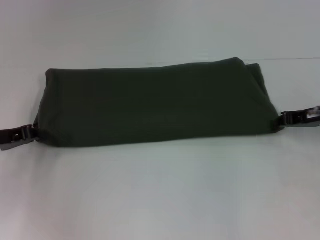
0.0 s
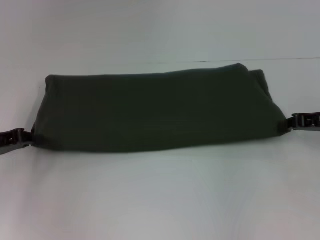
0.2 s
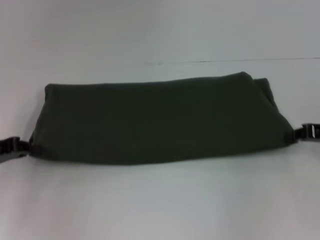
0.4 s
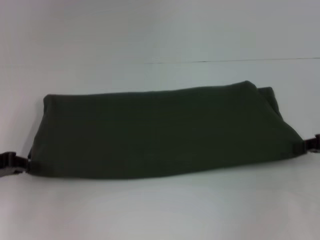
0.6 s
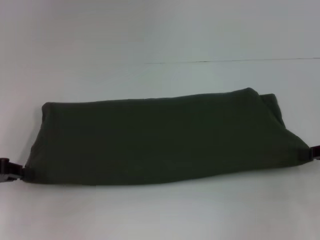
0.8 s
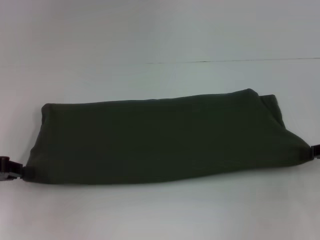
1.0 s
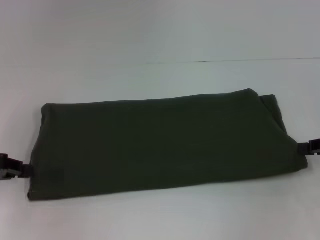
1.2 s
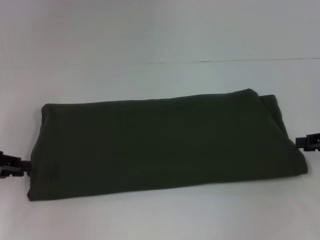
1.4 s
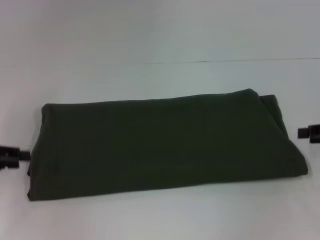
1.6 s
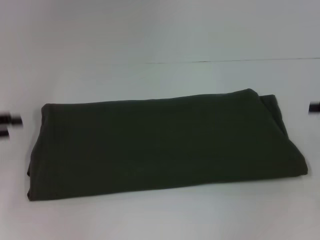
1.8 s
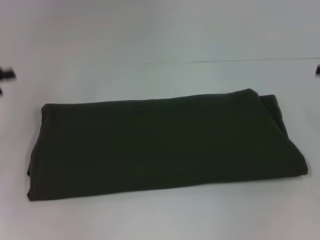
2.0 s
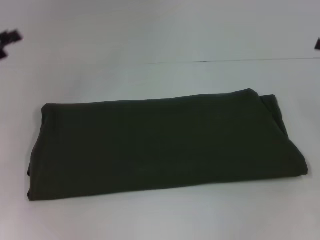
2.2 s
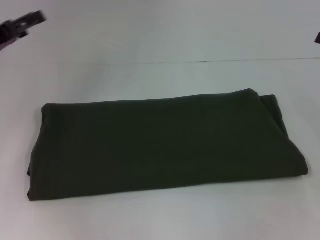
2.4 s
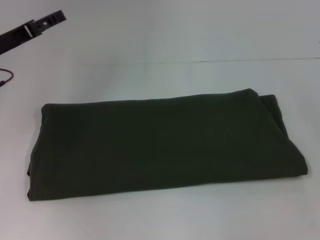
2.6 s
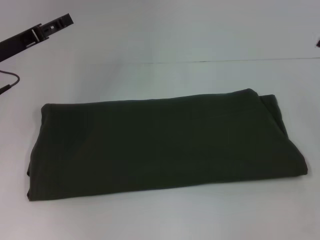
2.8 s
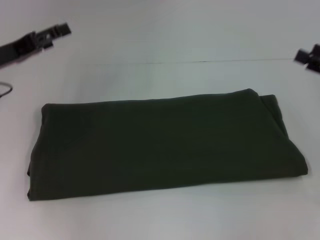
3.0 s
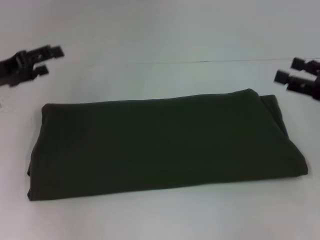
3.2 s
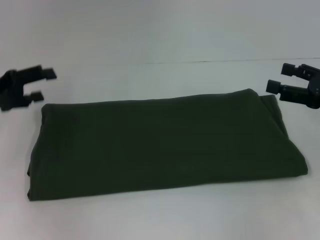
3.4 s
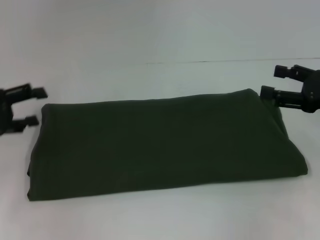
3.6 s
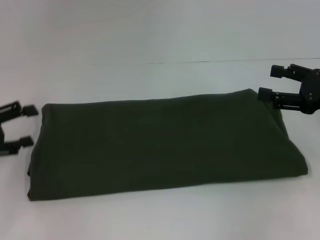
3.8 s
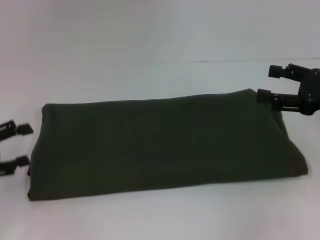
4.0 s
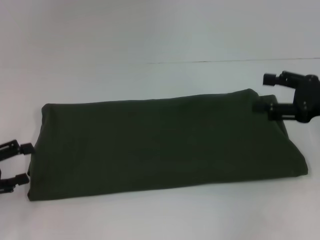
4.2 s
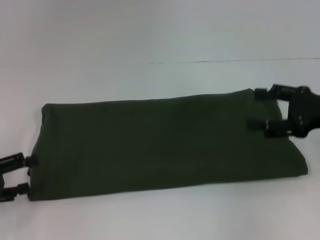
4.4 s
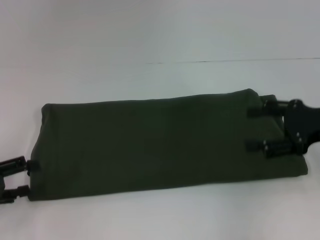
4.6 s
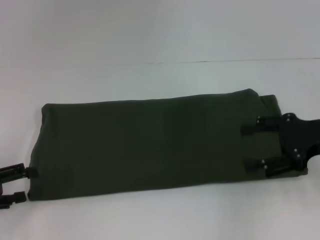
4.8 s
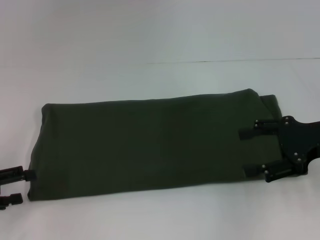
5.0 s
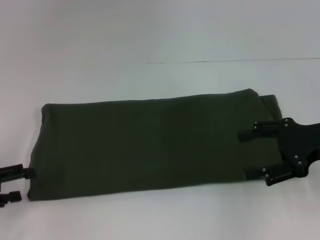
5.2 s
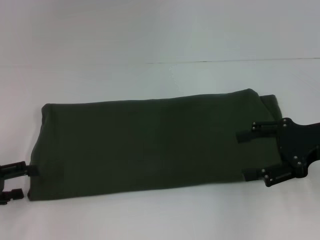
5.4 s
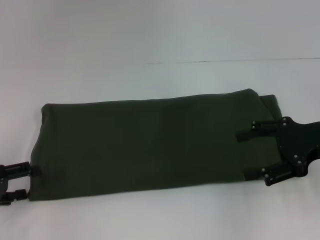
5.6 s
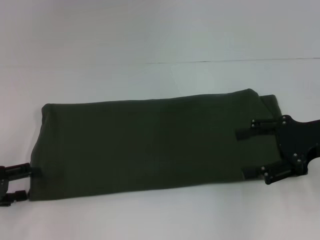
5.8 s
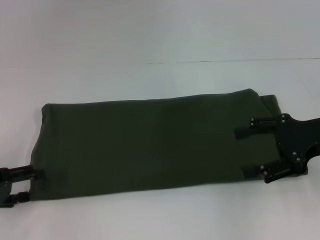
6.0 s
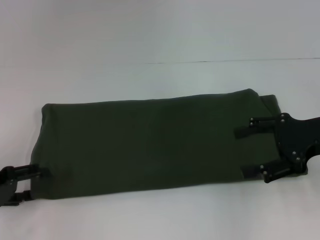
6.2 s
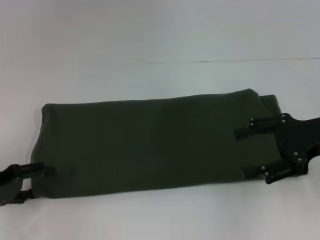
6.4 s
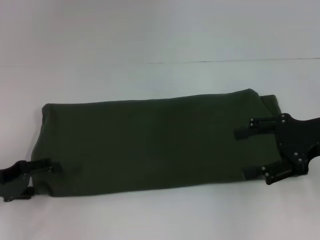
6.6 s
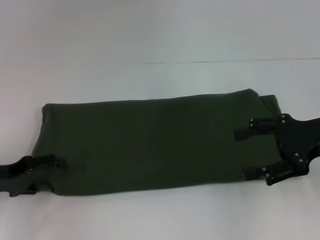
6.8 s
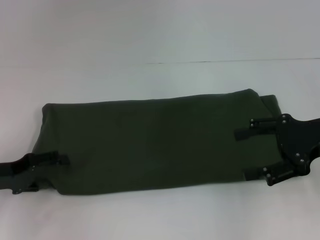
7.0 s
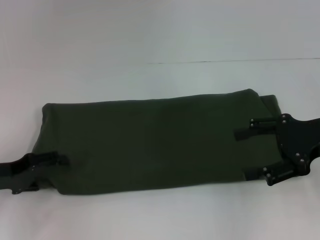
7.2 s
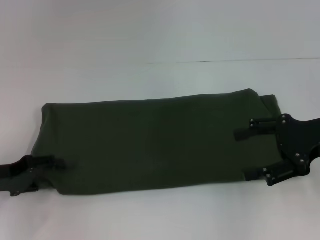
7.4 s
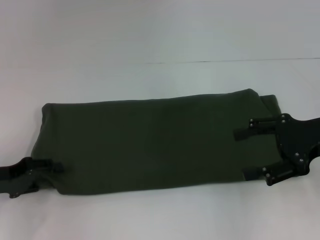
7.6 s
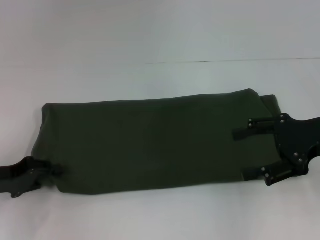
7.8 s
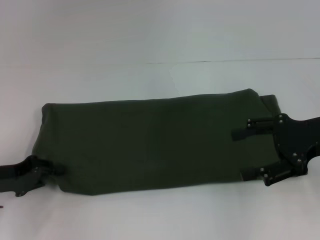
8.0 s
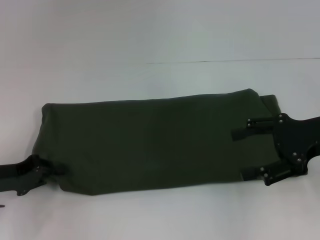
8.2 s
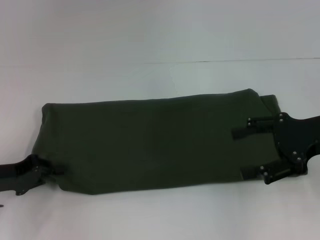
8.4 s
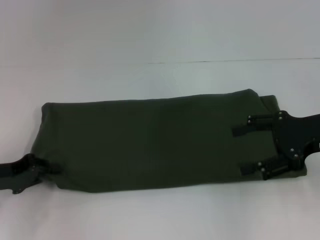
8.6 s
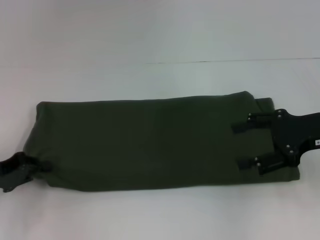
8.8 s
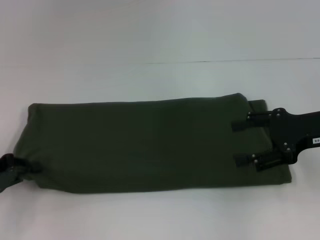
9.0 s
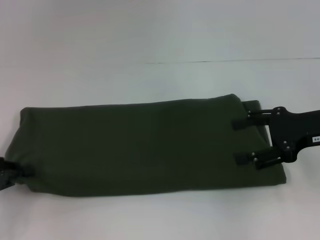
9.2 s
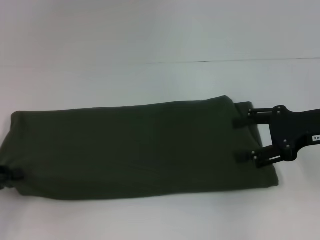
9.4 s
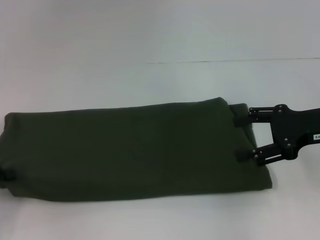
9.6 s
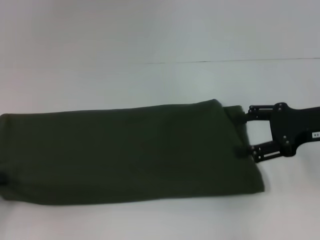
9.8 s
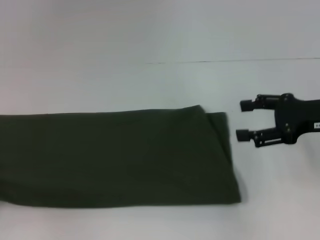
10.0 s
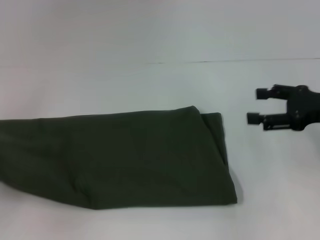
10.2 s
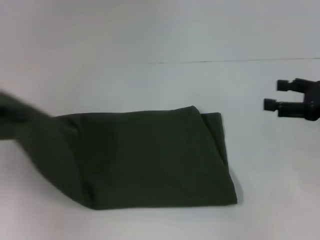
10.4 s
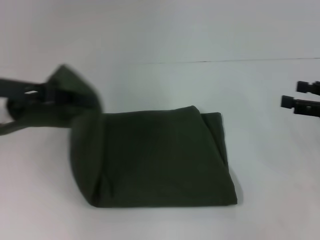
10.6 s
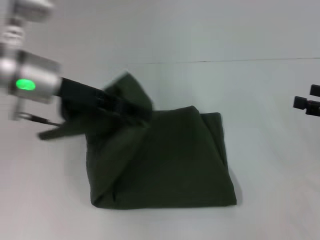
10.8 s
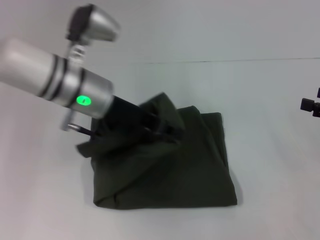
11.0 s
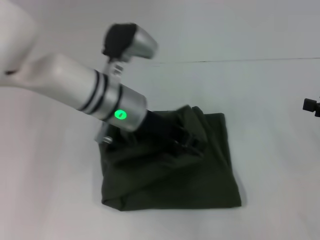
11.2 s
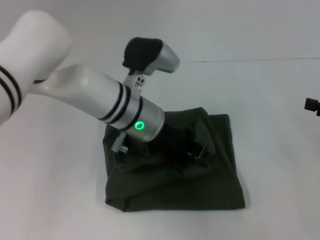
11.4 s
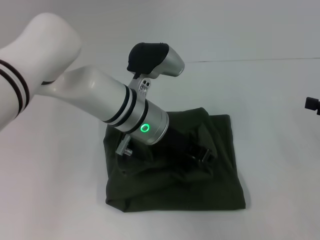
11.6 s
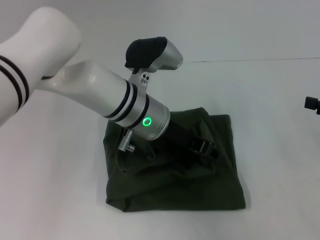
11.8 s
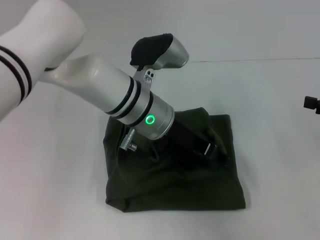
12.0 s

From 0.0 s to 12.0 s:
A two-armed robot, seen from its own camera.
From 0.0 s to 1.6 s: The right gripper moves to the right and backward, roughly 10 cm, and opens; the left gripper changes place by some 5 cm.
From 1.6 s to 3.0 s: The right gripper opens up. The left gripper shifts approximately 10 cm forward and to the right, and opens up.
From 3.0 s to 4.4 s: The left gripper shifts approximately 15 cm backward, downward and to the left.
From 4.4 s to 7.6 s: There are only small adjustments of the grippers.
From 7.6 s to 9.0 s: The left gripper closes.
From 9.0 s to 10.4 s: The left gripper goes some 10 cm upward, while the right gripper goes about 5 cm to the right.
From 10.4 s to 12.0 s: The right gripper travels to the right by some 5 cm, while the left gripper goes some 35 cm to the right, and opens.

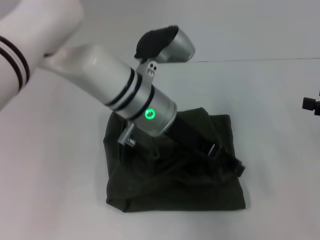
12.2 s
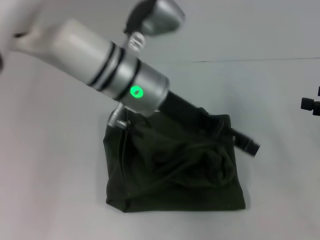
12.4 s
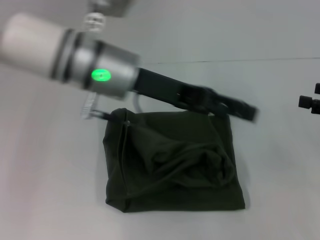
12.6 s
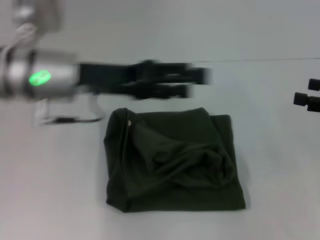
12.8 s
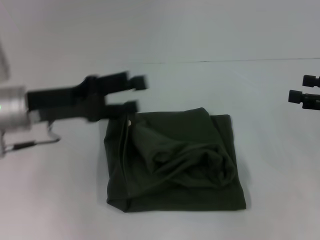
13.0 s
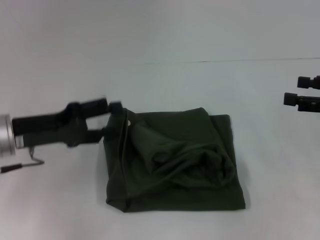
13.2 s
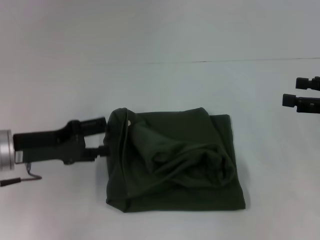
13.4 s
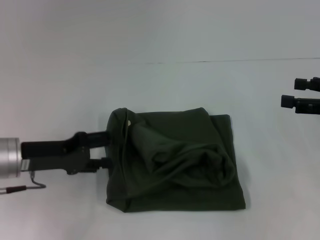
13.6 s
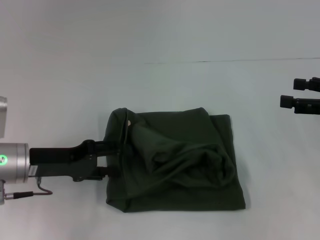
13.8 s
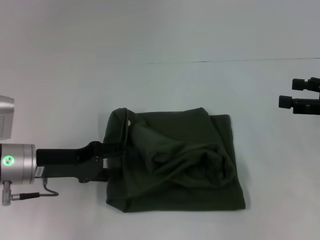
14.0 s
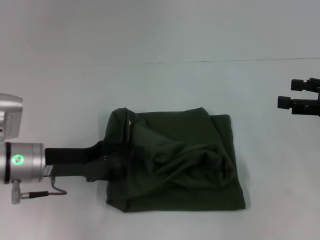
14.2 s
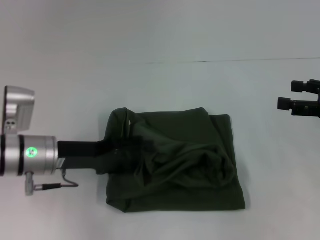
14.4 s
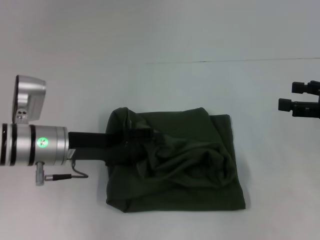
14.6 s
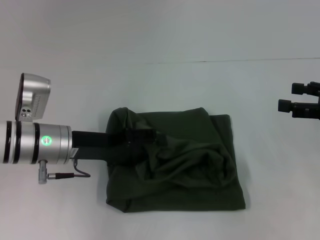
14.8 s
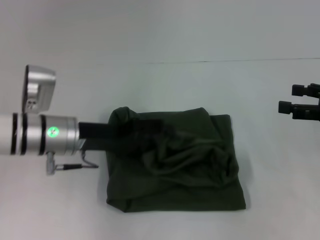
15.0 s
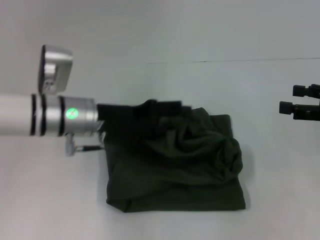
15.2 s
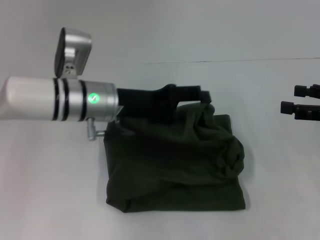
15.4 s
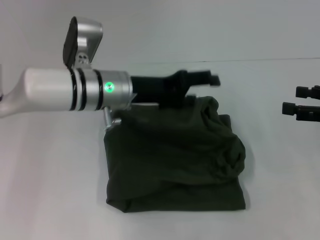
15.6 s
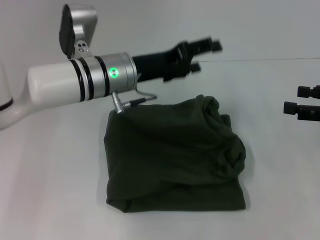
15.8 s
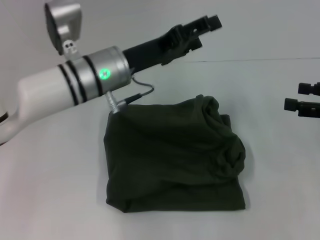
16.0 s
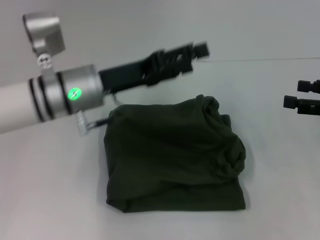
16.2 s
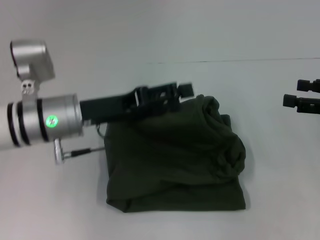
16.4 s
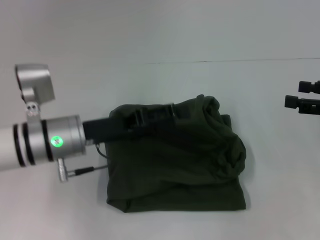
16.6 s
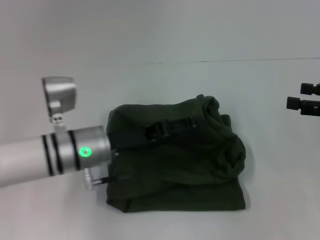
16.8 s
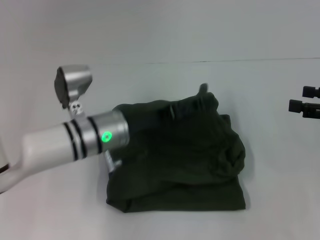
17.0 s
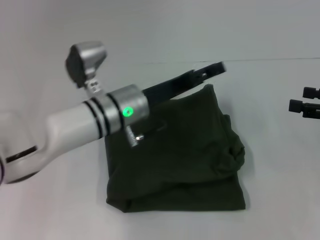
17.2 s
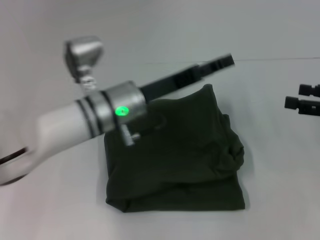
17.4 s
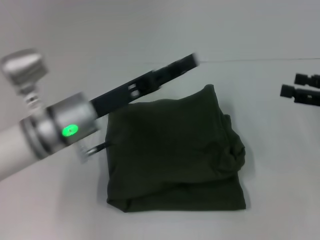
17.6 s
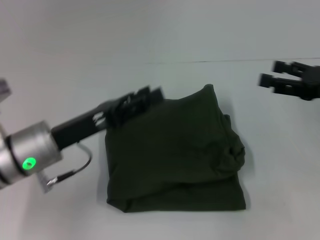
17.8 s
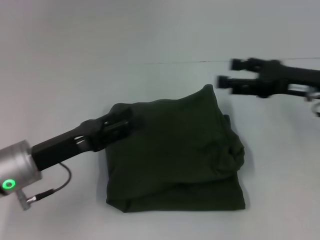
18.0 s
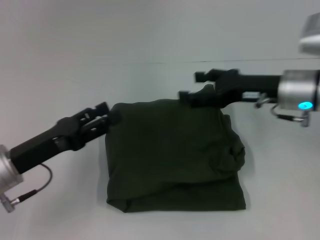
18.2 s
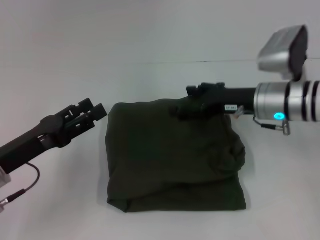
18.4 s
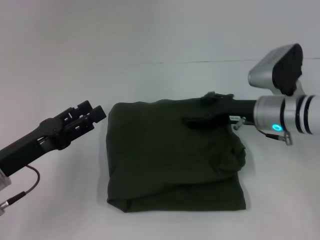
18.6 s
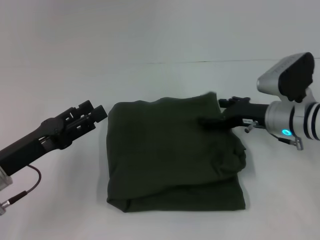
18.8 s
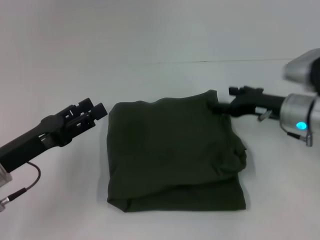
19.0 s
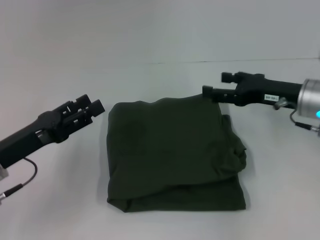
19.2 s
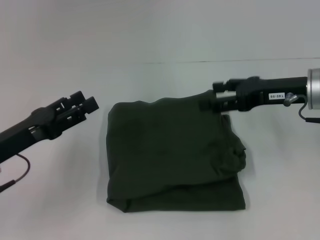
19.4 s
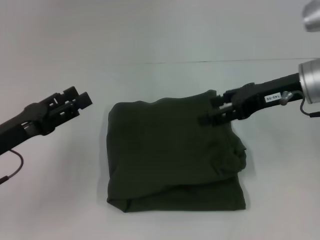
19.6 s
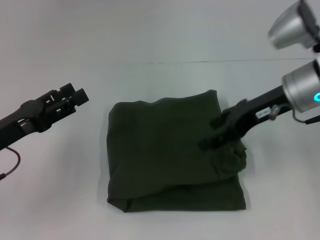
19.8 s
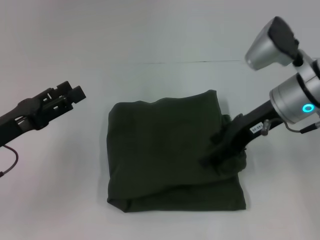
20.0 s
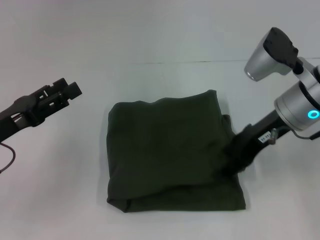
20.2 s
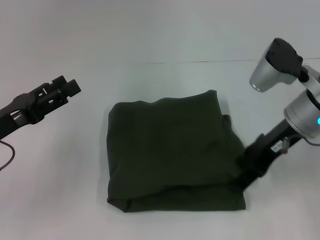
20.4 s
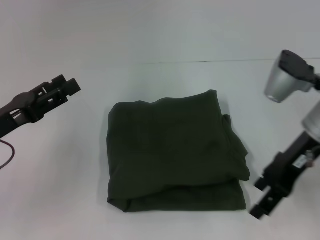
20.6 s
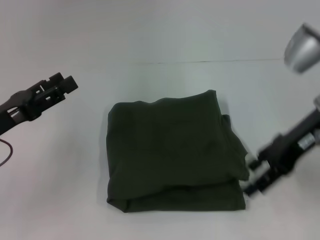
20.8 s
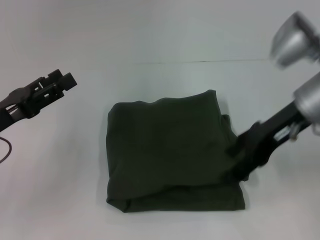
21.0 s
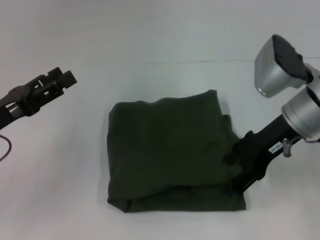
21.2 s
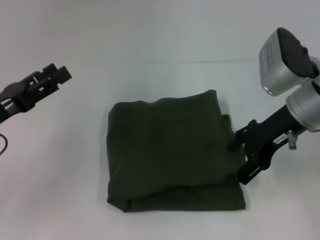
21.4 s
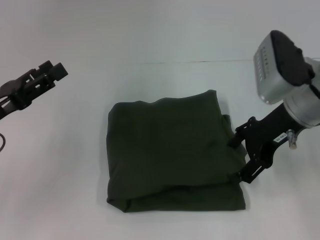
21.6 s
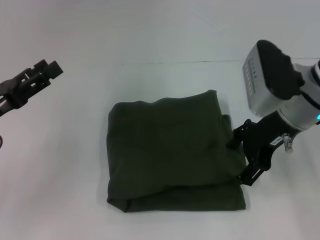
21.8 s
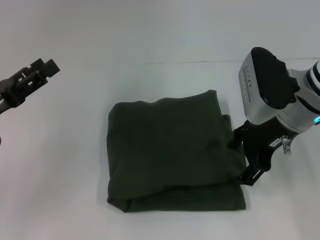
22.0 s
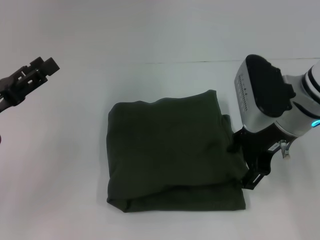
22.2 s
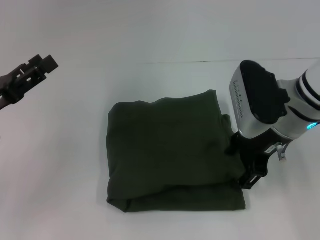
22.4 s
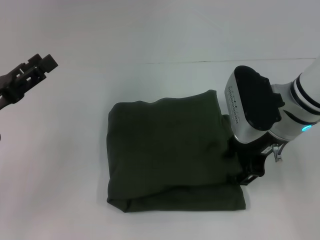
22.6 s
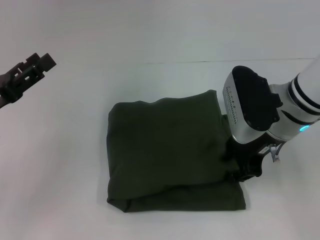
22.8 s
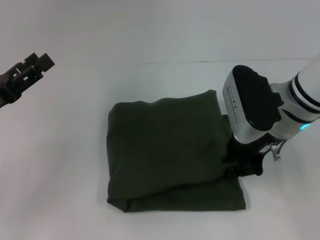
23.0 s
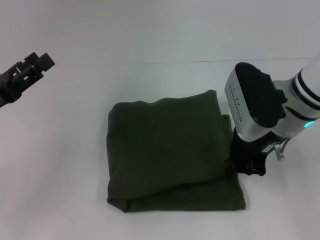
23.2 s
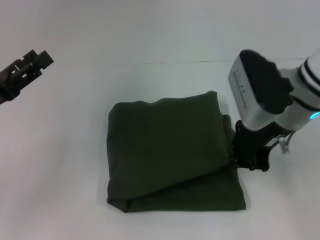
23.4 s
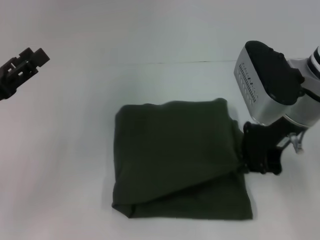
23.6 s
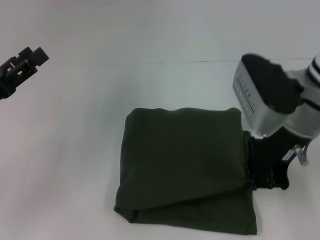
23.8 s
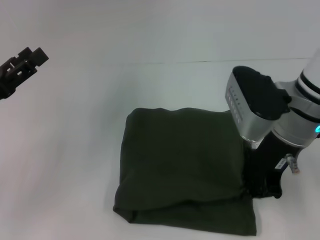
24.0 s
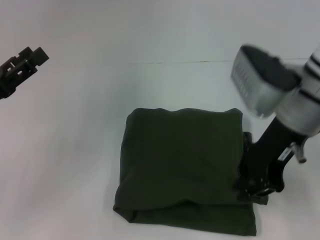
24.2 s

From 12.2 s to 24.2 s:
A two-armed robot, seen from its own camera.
From 12.2 s to 13.8 s: The left gripper moves to the left, approximately 20 cm, and opens.
From 13.8 s to 15.2 s: The left gripper heads to the right and forward, covering about 10 cm.
From 16.6 s to 18.2 s: The right gripper shifts about 15 cm to the left, while the left gripper heads to the left and backward, covering approximately 10 cm.
From 22.6 s to 24.2 s: The right gripper closes.
